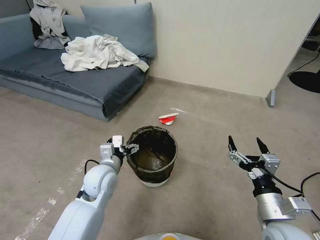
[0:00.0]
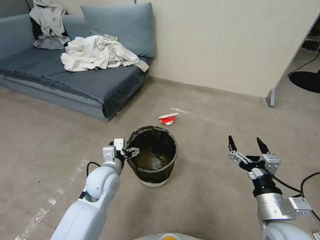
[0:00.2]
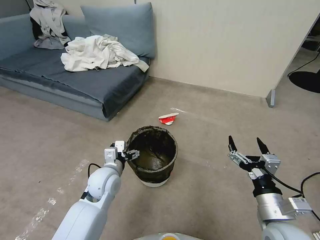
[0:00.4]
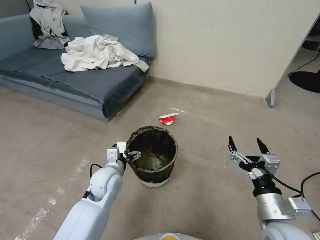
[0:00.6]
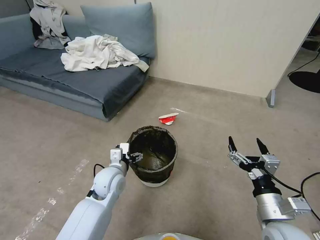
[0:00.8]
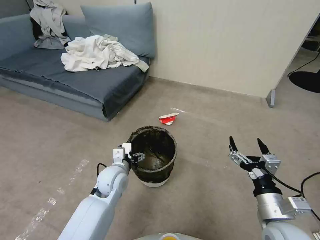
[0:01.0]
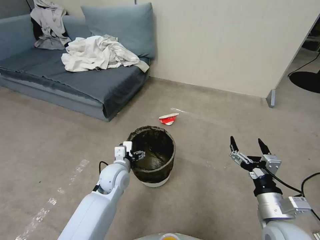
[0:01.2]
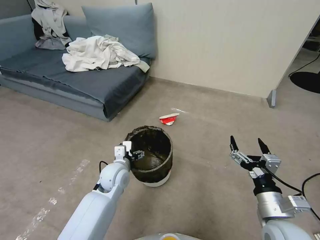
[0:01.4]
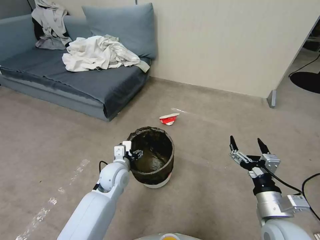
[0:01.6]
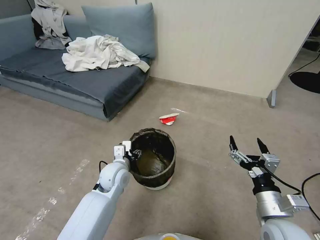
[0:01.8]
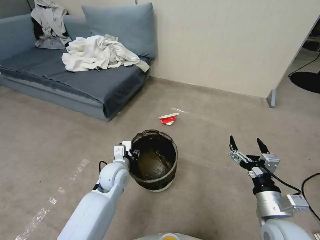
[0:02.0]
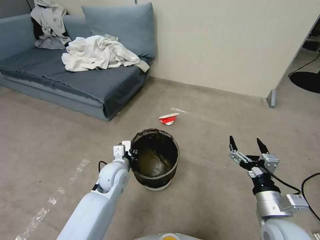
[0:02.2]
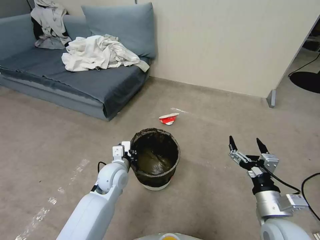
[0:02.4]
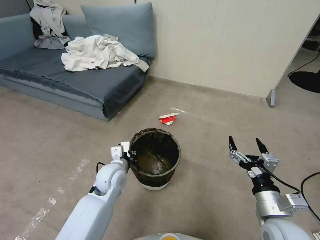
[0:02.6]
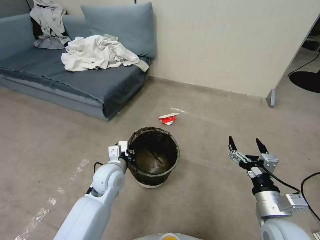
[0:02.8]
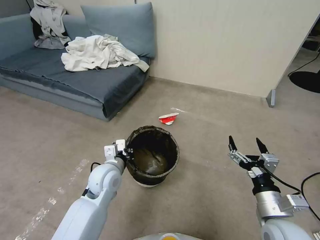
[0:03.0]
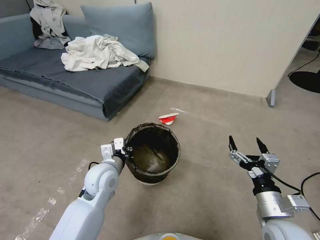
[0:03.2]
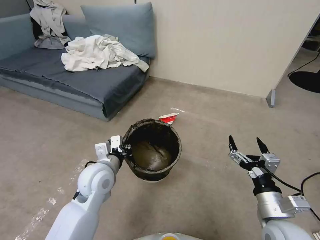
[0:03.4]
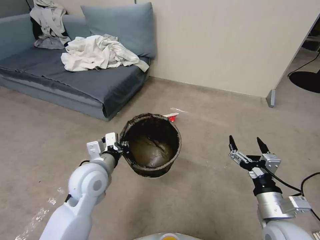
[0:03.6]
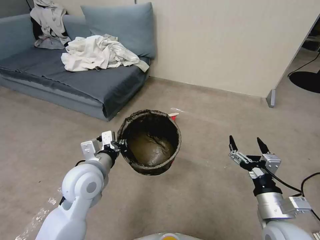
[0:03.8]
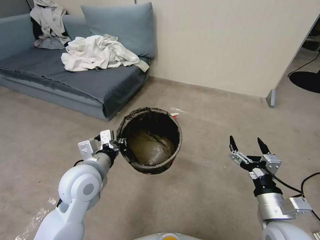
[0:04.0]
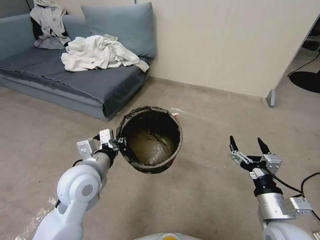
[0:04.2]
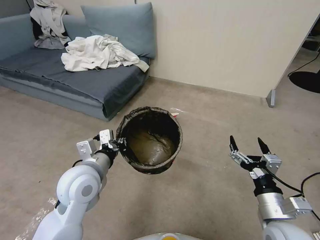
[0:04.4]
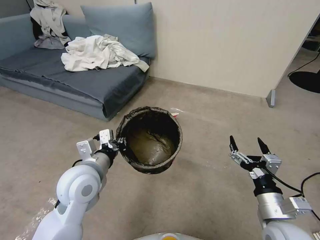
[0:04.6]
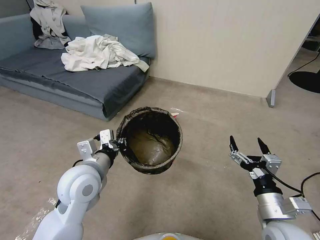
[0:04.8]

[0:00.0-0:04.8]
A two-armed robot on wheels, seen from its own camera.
Task of the whole recording: Pick up the trash can from the floor.
0:00.0 to 0:01.6: The left gripper changes place by some 5 cm.
0:01.6 to 0:03.2: The left gripper goes about 5 cm upward, and closes up.
0:03.2 to 0:04.8: The left gripper travels upward by roughly 10 cm.

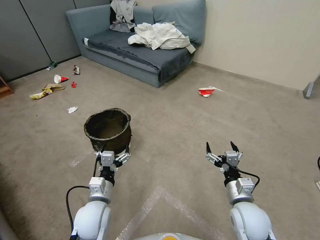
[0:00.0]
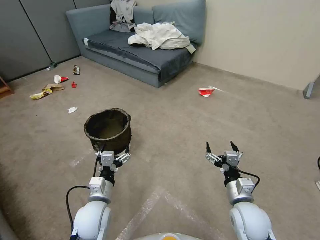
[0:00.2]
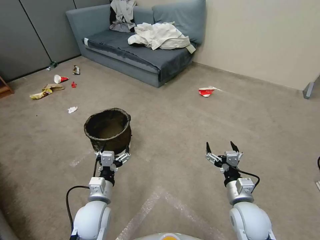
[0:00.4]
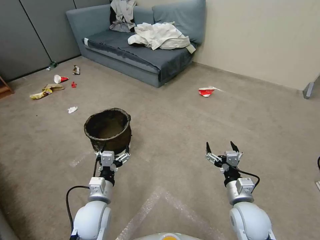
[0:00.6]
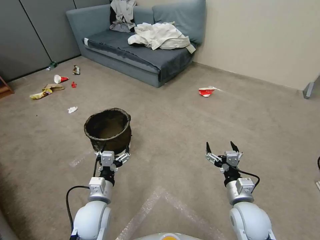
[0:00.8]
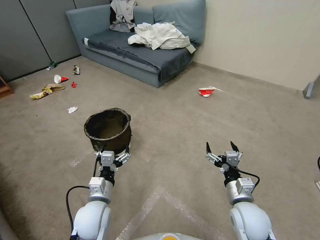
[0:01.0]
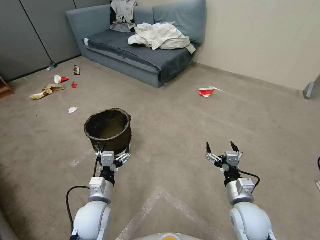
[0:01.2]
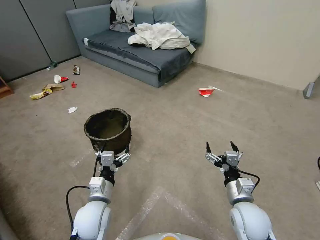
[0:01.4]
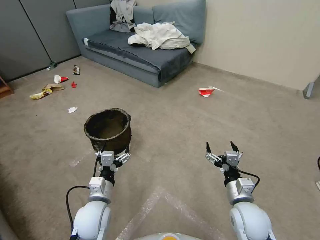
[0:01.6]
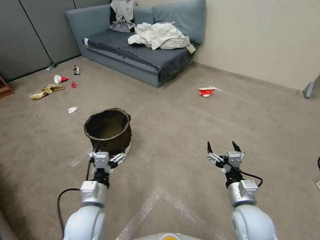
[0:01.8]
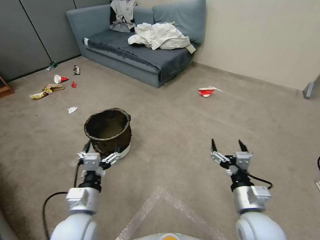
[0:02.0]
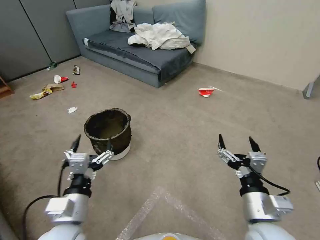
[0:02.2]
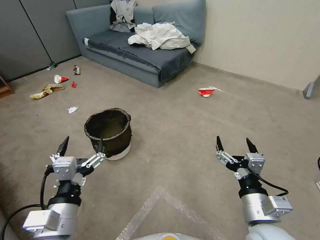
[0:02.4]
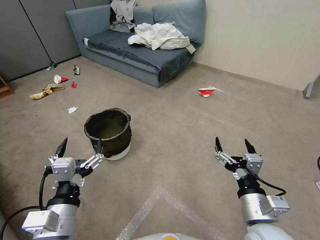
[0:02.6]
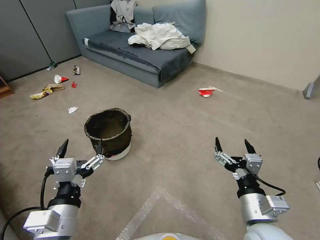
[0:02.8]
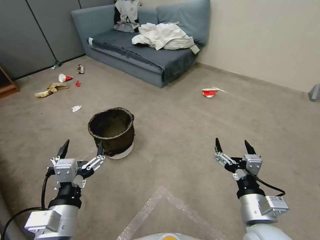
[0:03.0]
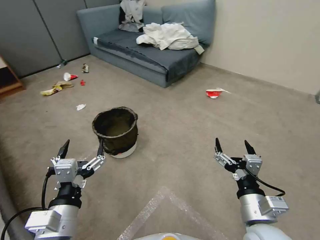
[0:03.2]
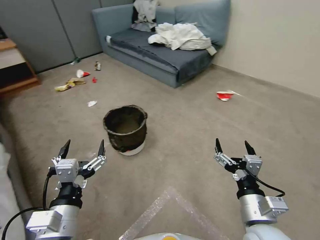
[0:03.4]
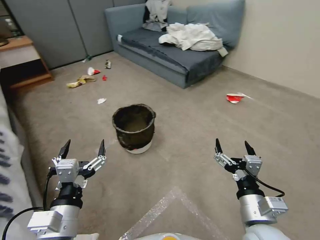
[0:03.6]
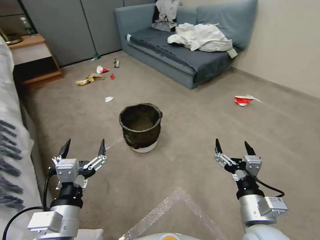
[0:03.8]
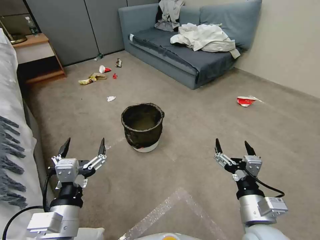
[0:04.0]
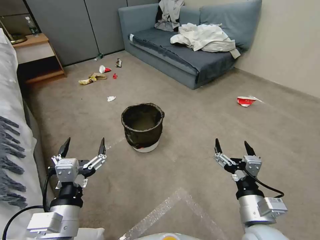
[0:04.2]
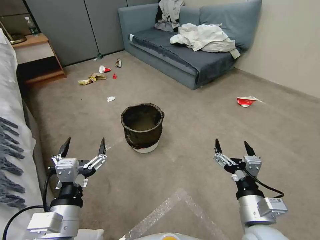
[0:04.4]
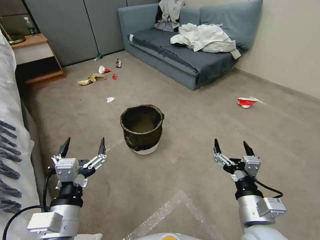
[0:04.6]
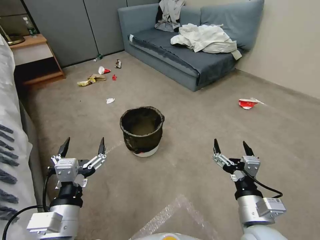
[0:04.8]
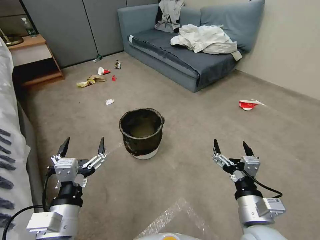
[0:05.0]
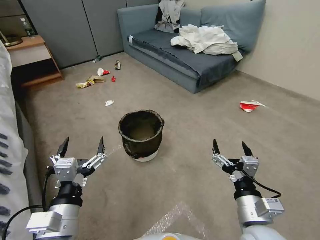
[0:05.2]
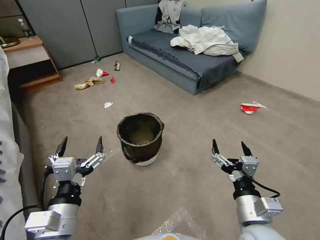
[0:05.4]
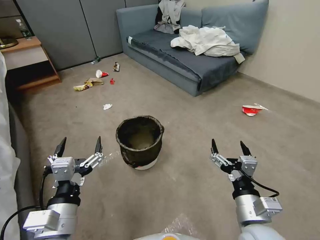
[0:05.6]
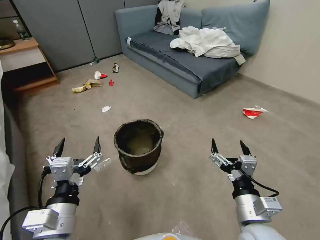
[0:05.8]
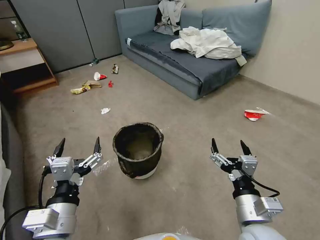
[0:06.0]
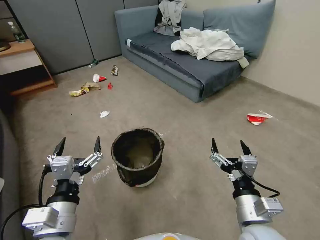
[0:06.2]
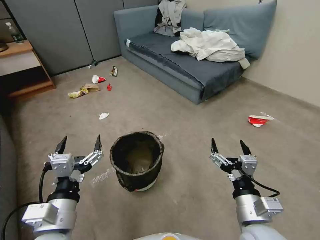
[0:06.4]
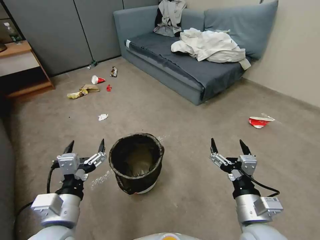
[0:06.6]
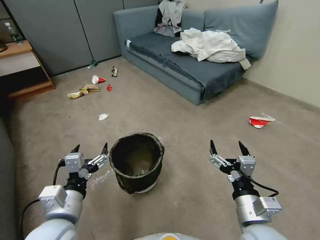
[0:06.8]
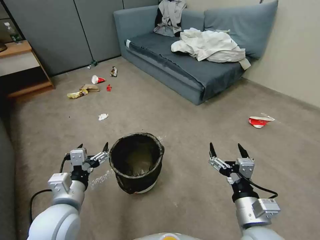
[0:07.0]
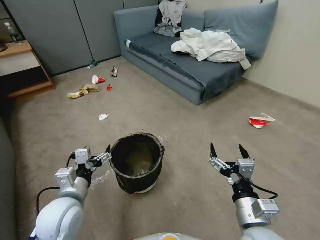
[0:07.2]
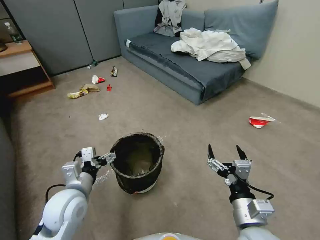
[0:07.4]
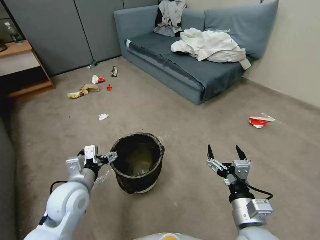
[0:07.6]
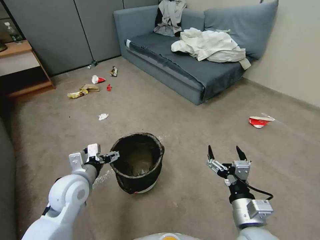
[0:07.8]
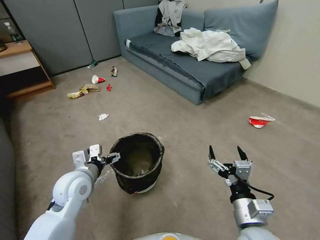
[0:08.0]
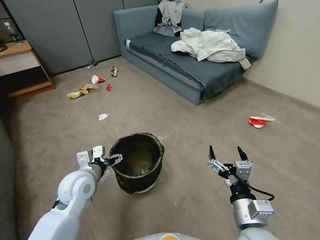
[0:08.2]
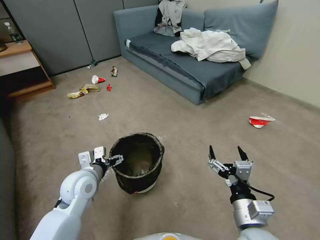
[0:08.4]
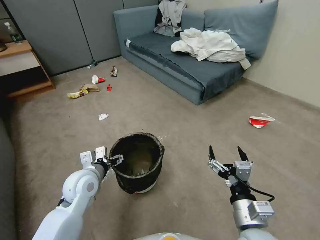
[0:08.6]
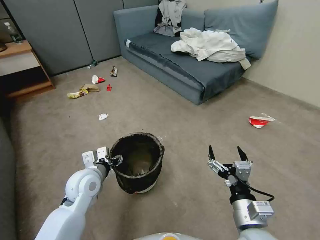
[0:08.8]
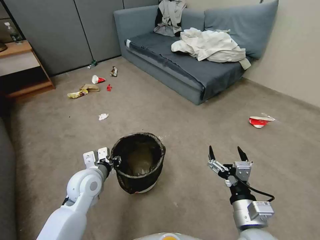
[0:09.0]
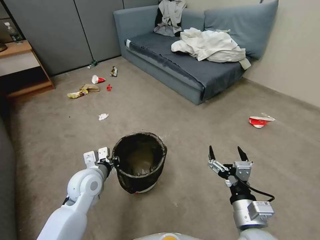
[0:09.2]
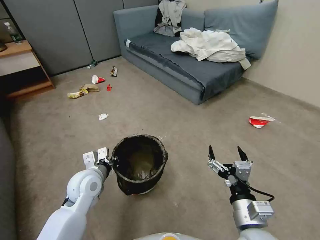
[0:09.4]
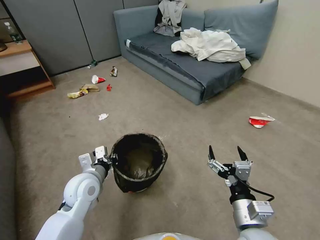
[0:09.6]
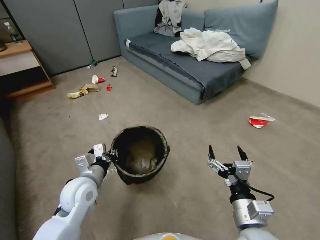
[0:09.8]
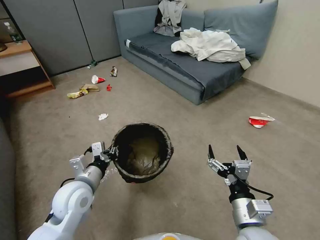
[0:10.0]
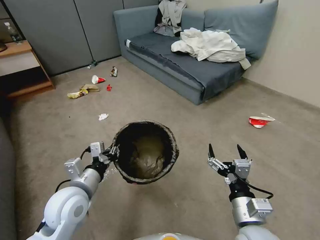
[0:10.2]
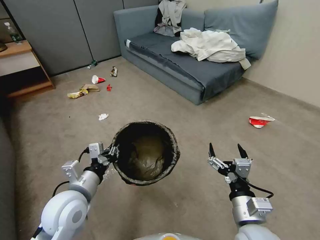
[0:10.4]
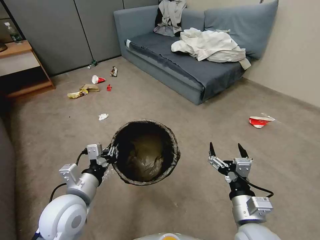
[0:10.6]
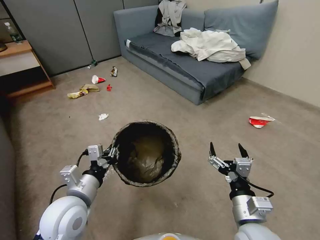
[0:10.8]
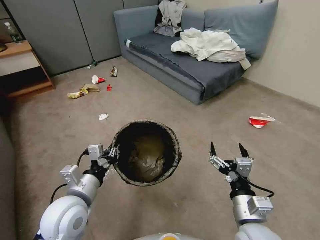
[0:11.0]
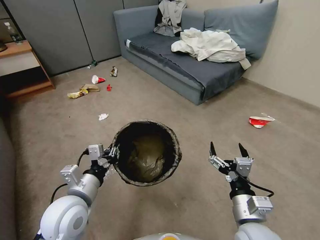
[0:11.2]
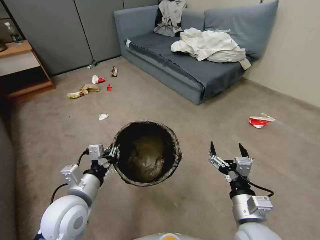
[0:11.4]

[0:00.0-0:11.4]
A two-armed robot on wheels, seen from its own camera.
Task of the whole recording: Pick up the trash can from the floor.
0:01.4 to 0:02.8: The right gripper heads upward and backward, covering some 10 cm. The left gripper moves upward and backward, roughly 15 cm.
0:05.6 to 0:07.2: The left gripper goes approximately 10 cm forward.
0:07.2 to 0:08.6: The left gripper travels forward by roughly 10 cm.
0:08.6 to 0:10.0: The left gripper closes its fingers.
0:10.0 to 0:11.4: The left gripper moves some 5 cm.
